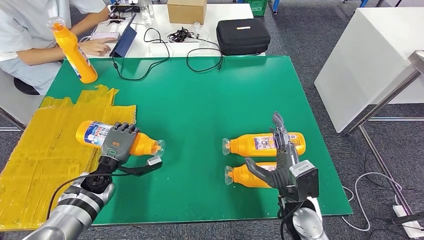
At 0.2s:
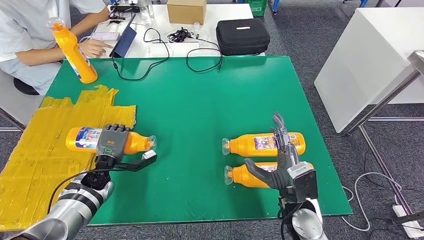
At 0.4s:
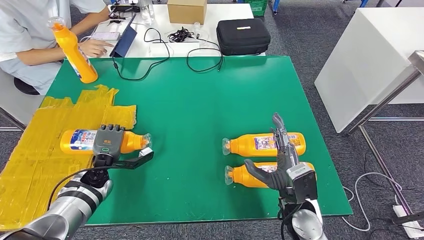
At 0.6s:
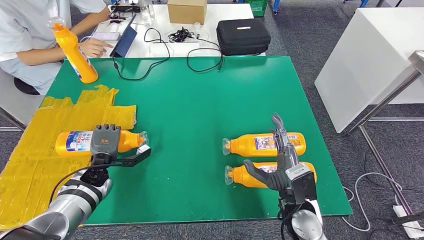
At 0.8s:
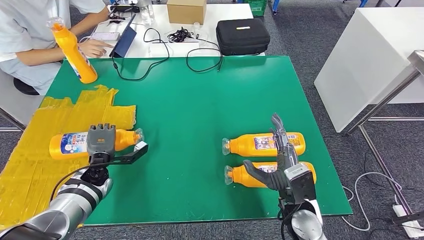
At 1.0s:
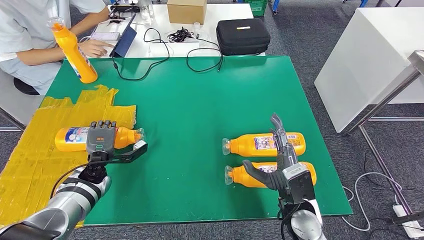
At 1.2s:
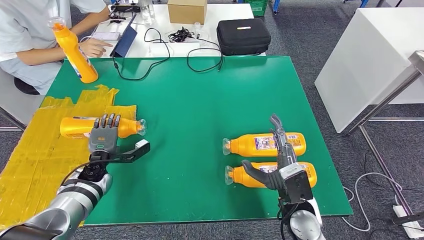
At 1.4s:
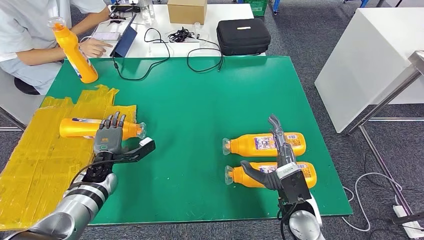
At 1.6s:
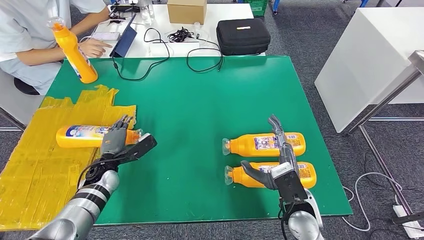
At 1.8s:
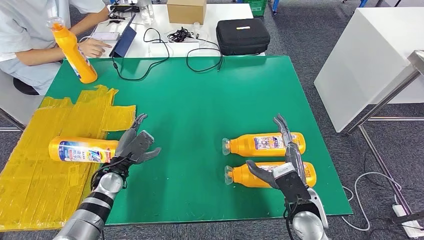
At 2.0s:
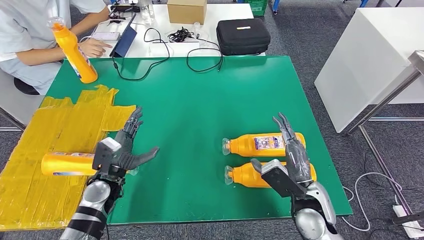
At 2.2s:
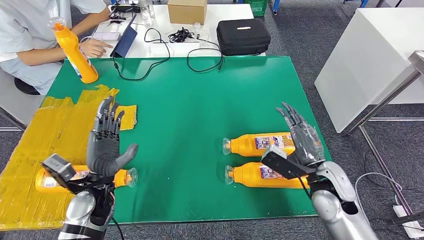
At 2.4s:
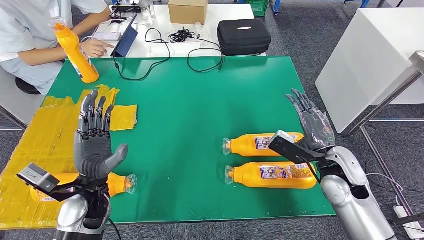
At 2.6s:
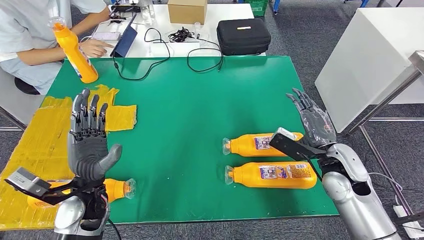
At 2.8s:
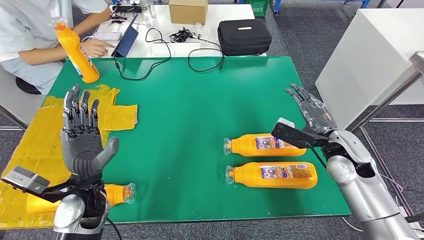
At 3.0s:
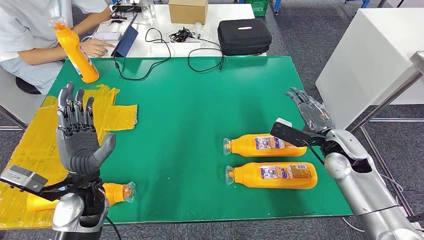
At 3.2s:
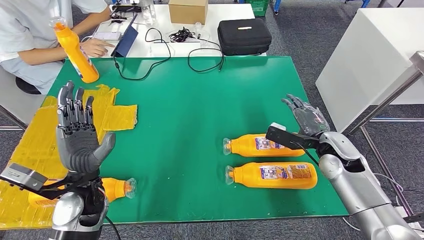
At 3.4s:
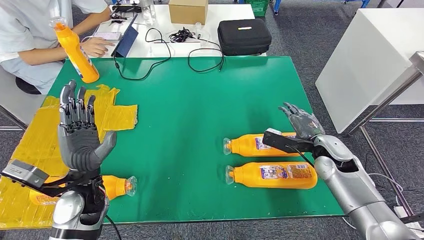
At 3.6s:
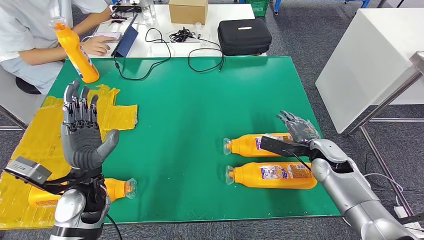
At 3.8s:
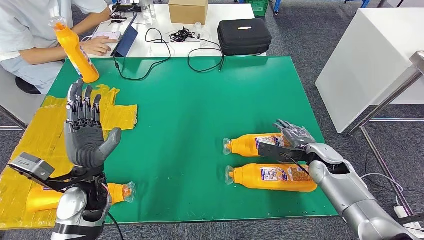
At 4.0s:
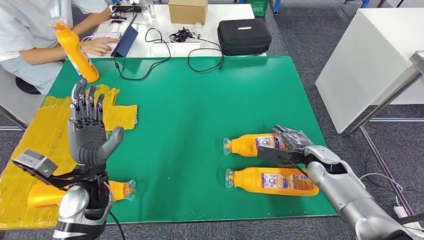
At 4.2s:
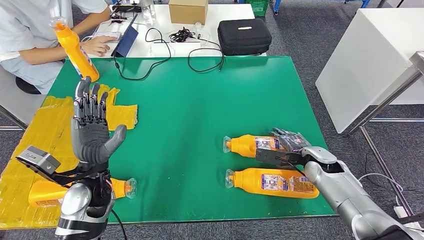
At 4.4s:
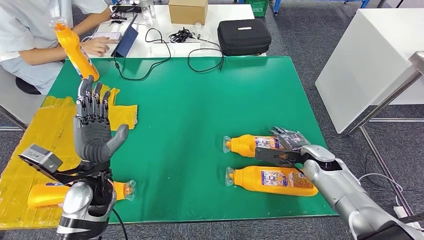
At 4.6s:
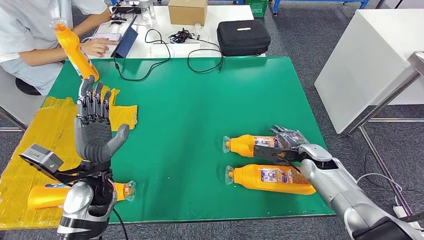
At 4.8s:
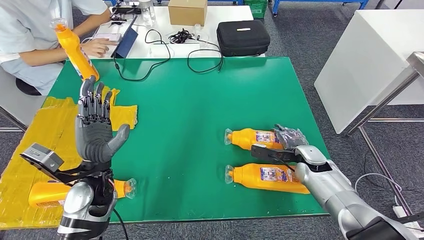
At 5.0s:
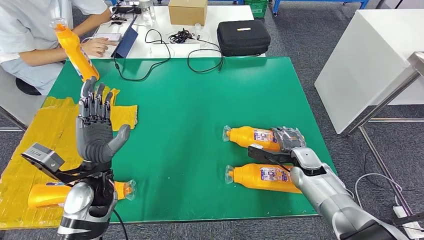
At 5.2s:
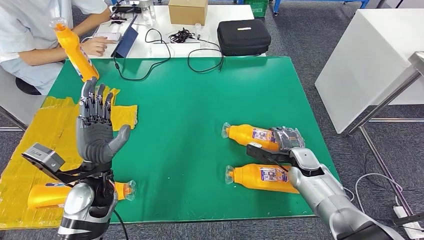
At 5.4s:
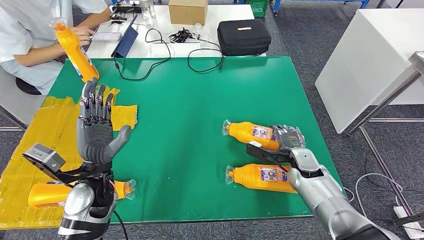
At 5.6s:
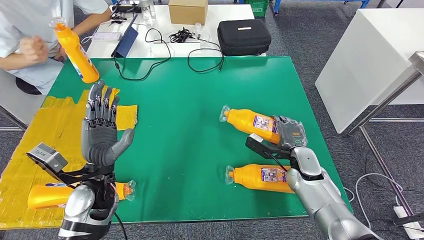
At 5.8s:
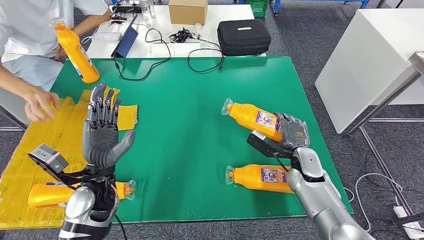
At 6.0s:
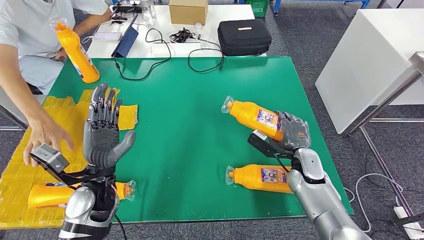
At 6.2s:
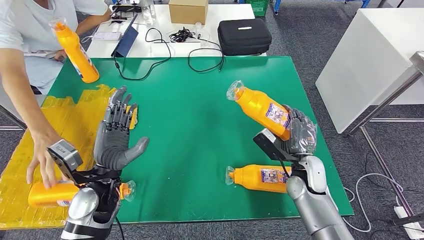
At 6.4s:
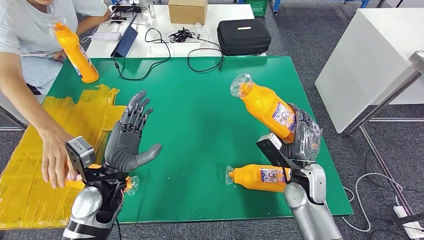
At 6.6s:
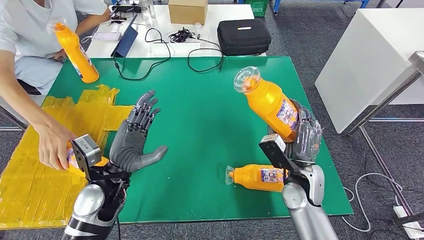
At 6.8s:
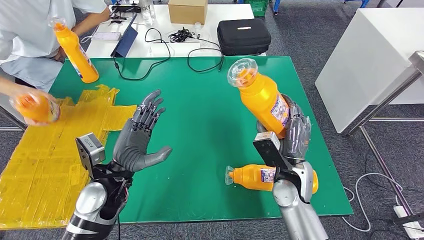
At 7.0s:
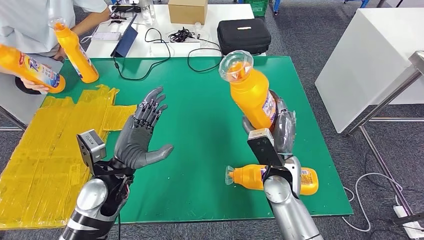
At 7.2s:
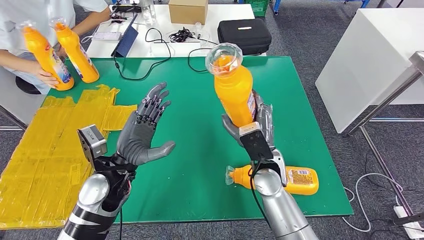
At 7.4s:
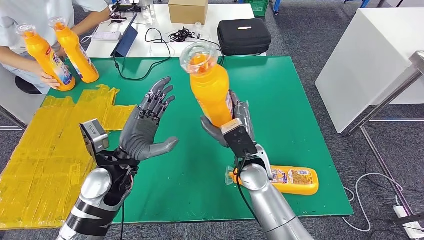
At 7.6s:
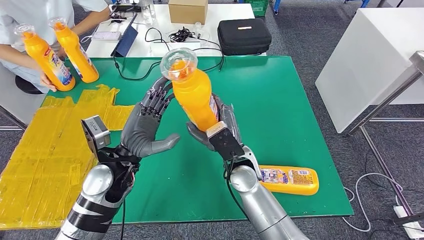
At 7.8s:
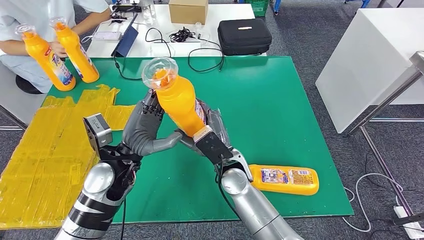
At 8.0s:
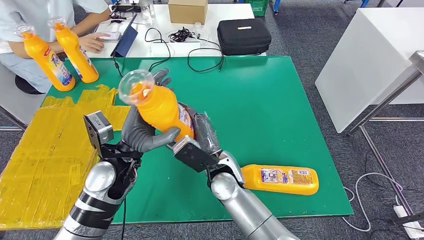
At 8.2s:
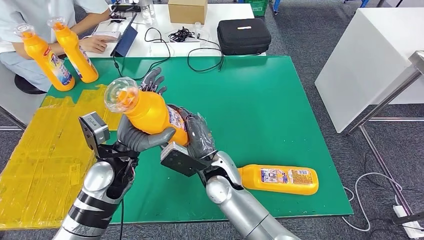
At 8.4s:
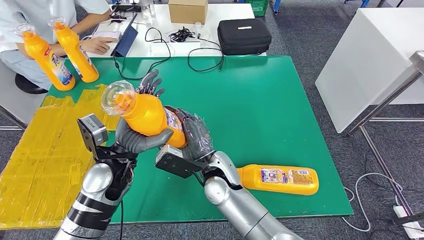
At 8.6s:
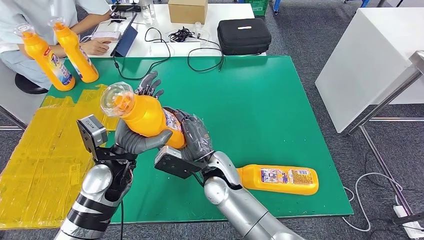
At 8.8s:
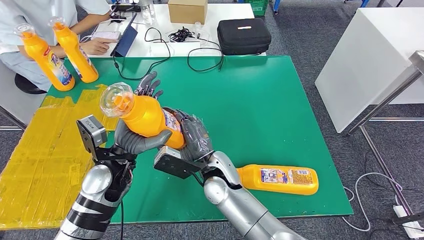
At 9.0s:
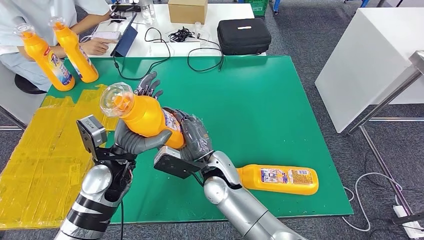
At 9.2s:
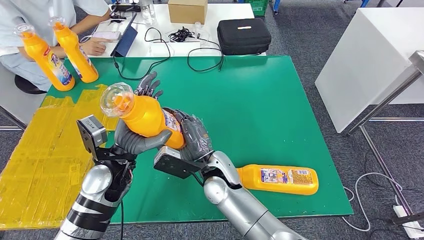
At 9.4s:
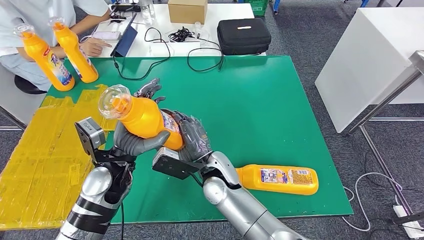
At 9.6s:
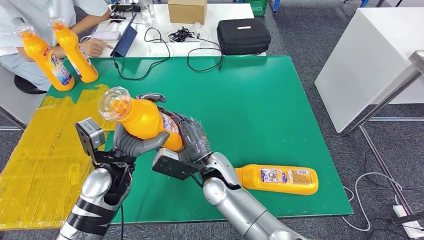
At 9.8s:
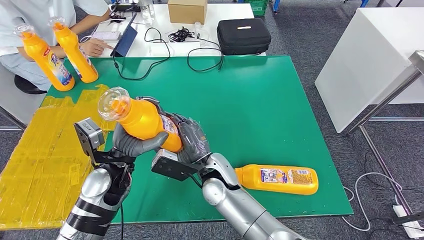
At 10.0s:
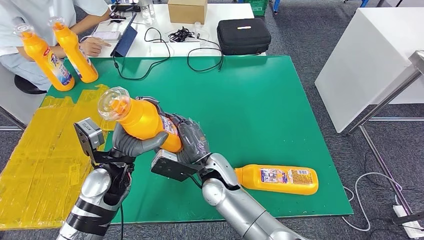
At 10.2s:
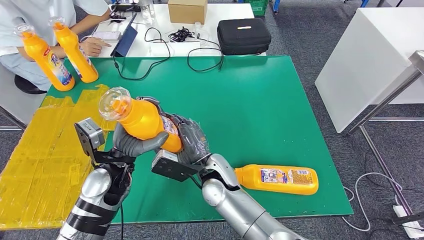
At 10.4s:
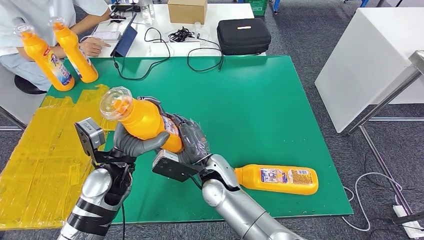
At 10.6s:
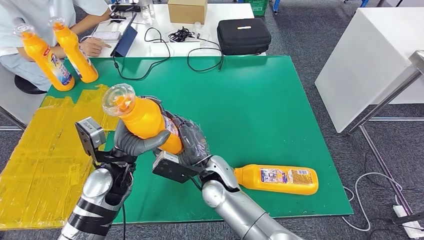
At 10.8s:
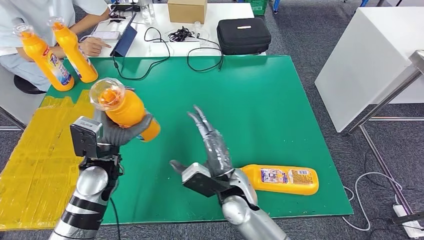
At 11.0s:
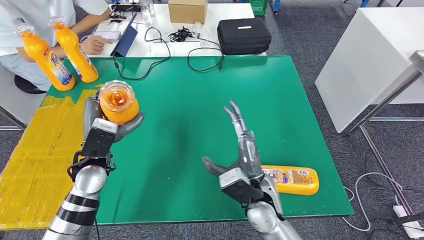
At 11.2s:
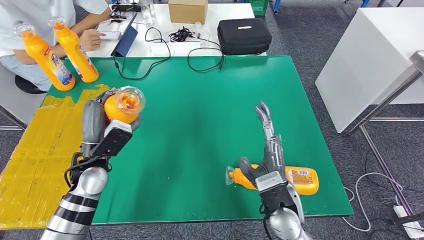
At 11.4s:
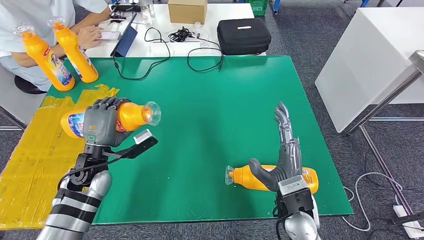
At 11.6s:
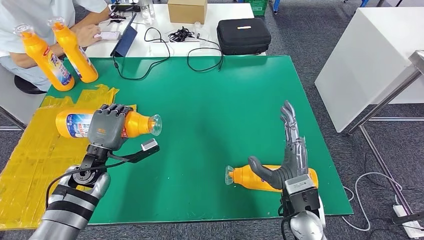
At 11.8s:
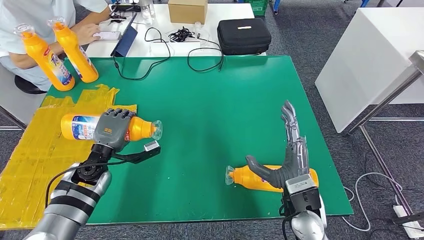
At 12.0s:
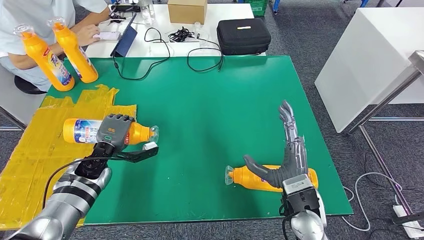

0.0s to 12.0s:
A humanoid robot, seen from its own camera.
Step, 0.0s to 2.4s: Flip the fast-moving consumer goods bottle to the front side.
Step, 3.4s to 6.6s: Pick up the fast-moving consumer goods bottle from the table.
3.0s to 4.4s: The right hand heads downward, covering approximately 10 cm.
4.4s to 6.0s: The right hand moves roughly 5 cm.
7.6s to 9.0s: The right hand shifts approximately 5 cm to the left.
9.0s to 10.4s: There are only small adjustments of the hands.

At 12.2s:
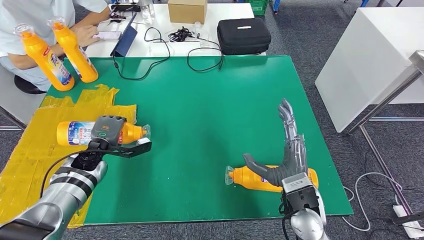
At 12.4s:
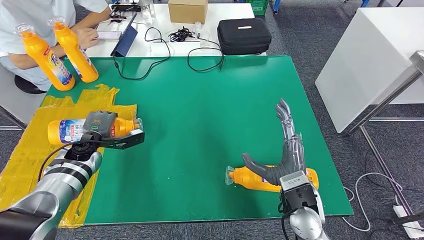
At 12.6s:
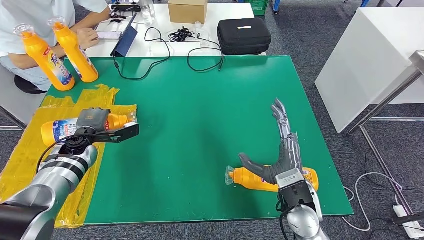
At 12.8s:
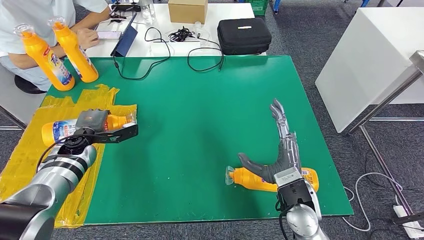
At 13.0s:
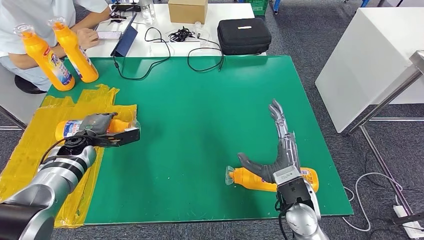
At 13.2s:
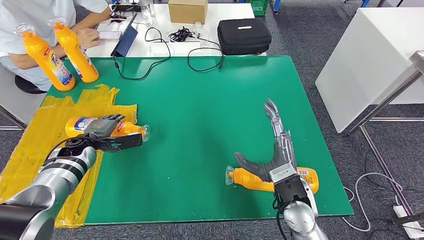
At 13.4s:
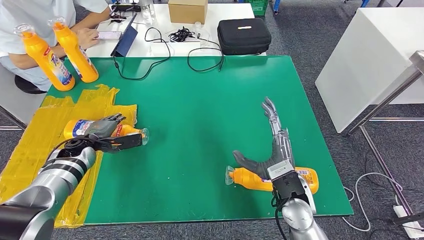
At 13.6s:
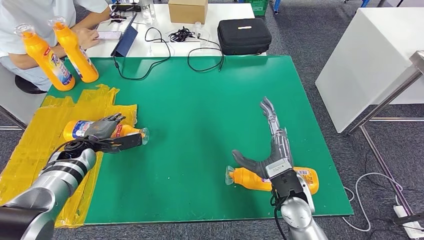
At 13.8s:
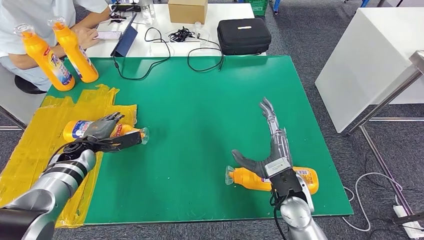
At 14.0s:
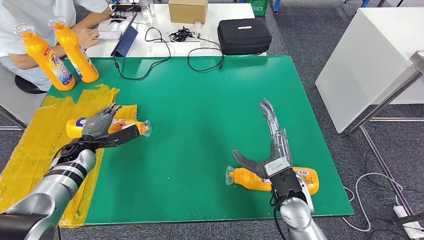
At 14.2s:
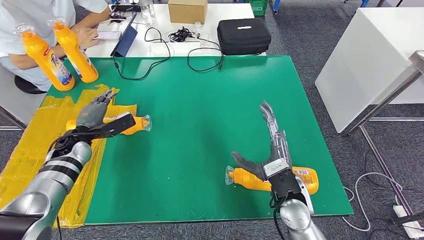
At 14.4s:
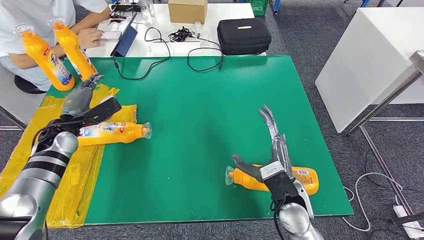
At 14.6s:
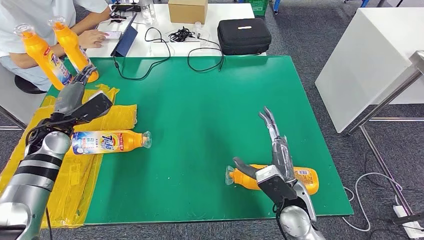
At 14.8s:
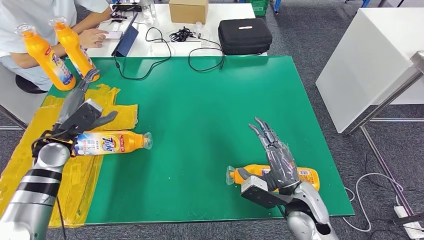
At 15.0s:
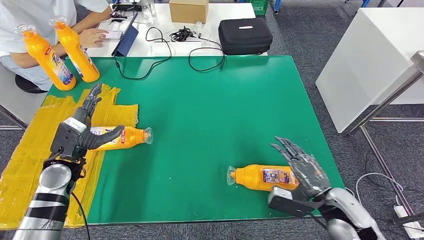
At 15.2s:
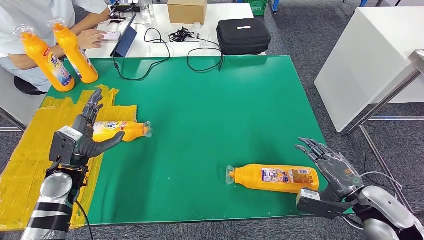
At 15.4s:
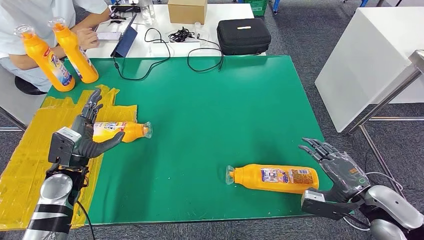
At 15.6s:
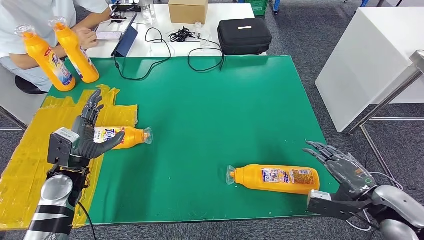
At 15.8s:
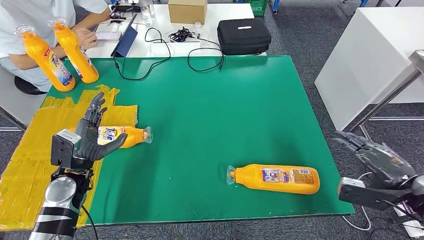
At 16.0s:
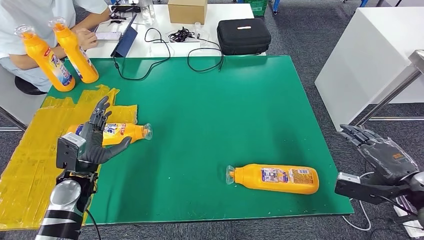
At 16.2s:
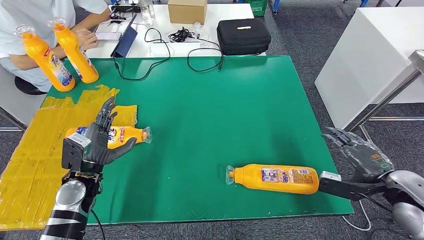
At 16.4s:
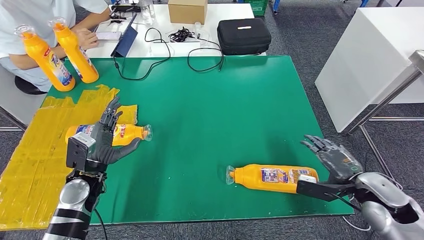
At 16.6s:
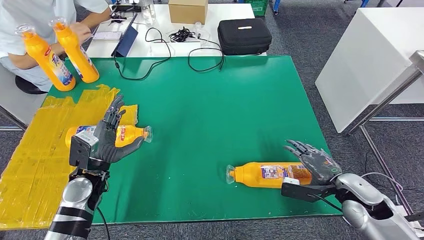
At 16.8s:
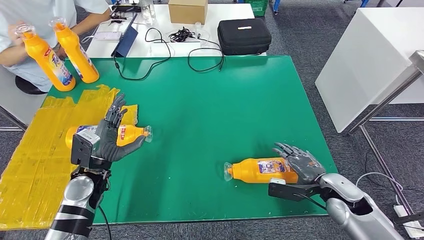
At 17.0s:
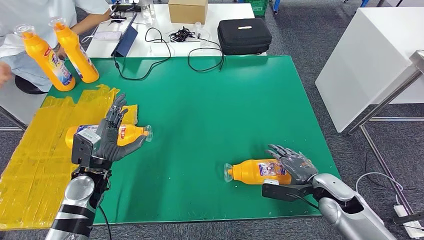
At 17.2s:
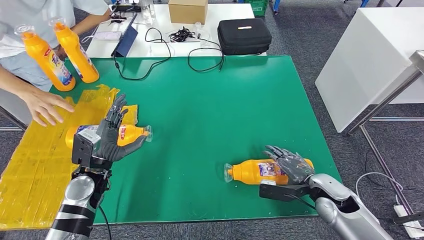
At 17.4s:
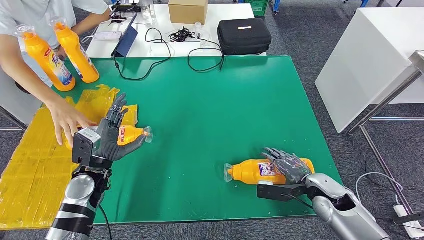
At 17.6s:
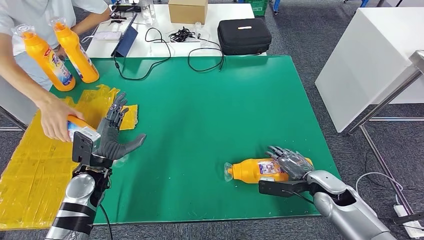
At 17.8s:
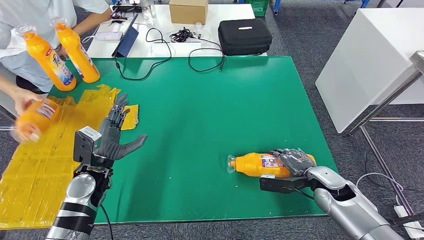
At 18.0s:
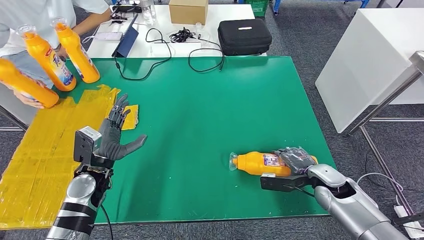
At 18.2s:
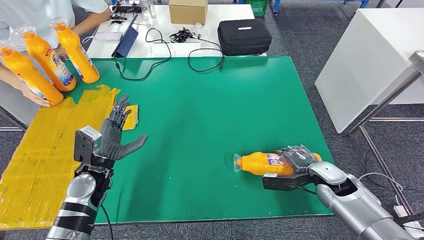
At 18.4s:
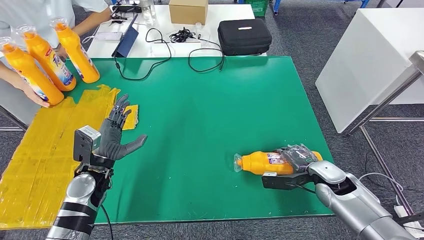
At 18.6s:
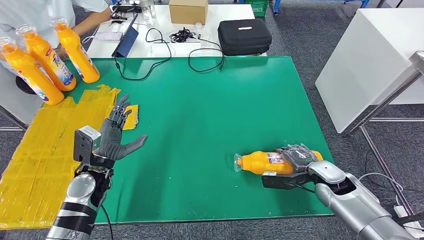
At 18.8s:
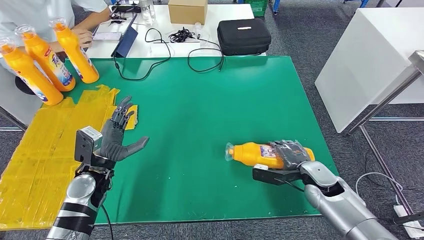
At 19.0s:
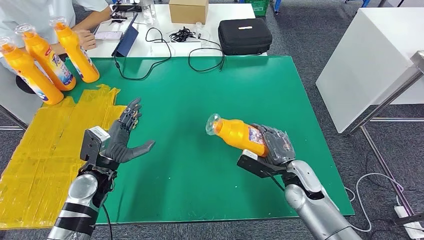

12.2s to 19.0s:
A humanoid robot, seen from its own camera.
Step, 12.2s to 14.6s: Flip the fast-moving consumer goods bottle to the front side.
13.6s to 15.0s: The left hand heads backward and upward, covering about 10 cm. The right hand is displaced to the right by roughly 10 cm.
16.2s to 17.6s: The right hand is displaced downward, to the left and forward by approximately 15 cm.
17.6s to 19.0s: The right hand shifts approximately 5 cm to the left.
